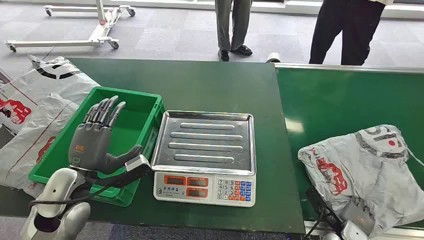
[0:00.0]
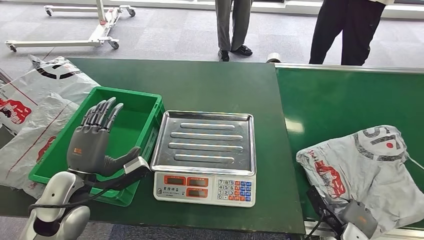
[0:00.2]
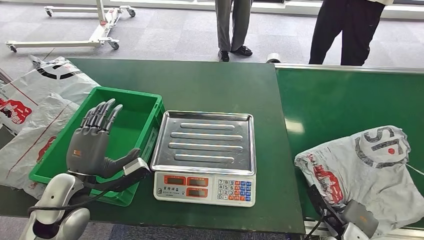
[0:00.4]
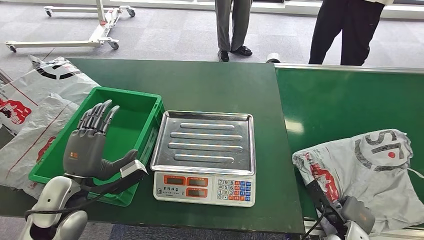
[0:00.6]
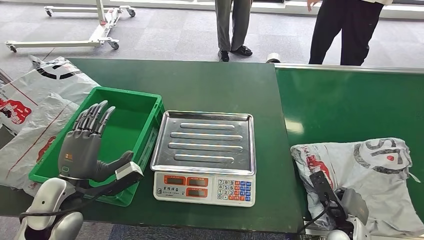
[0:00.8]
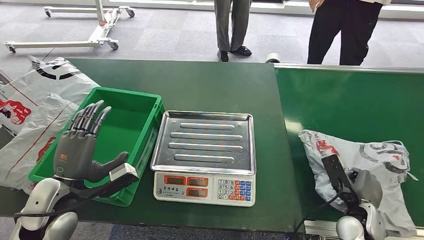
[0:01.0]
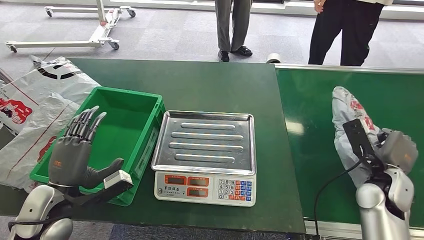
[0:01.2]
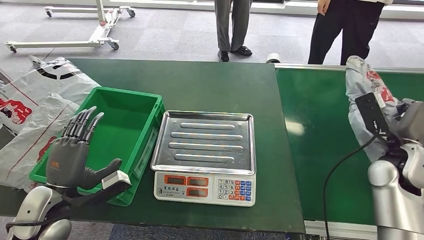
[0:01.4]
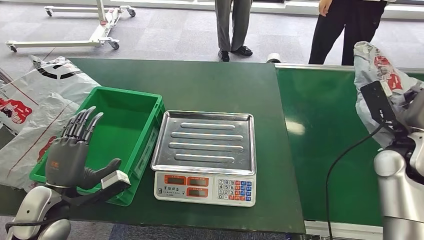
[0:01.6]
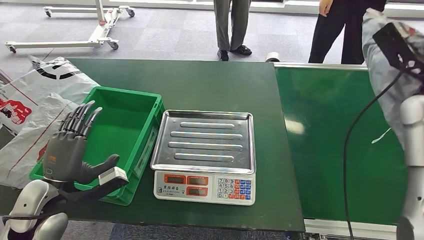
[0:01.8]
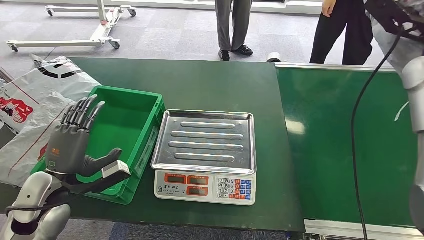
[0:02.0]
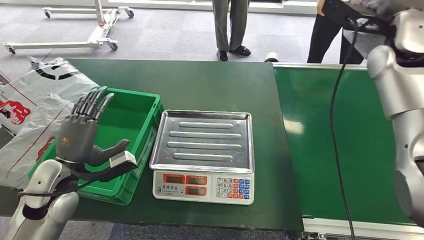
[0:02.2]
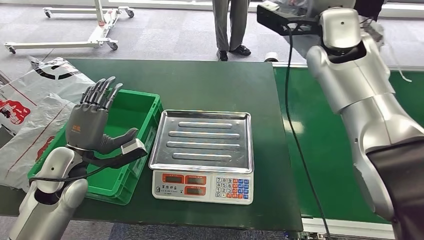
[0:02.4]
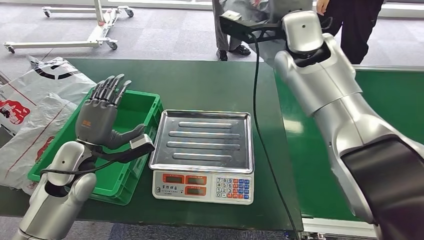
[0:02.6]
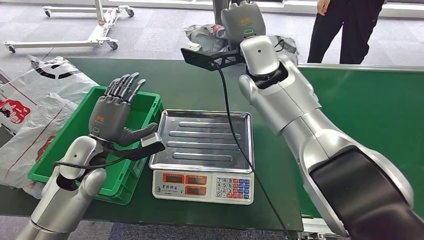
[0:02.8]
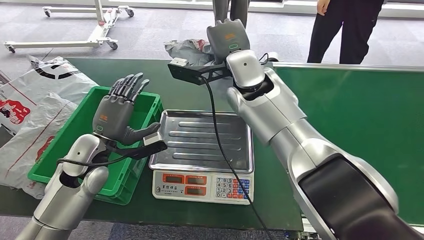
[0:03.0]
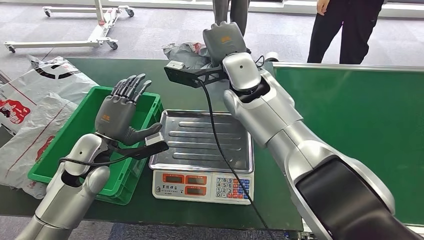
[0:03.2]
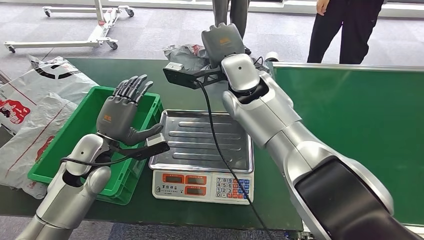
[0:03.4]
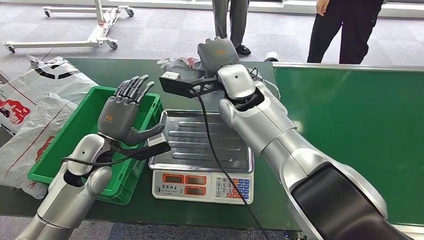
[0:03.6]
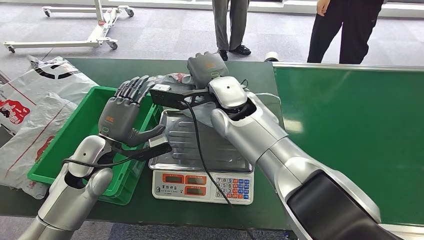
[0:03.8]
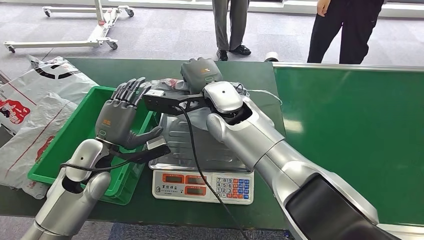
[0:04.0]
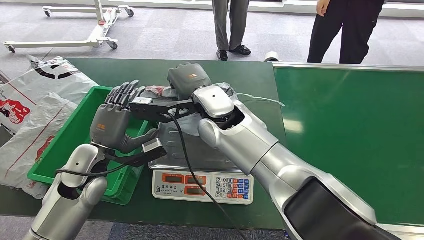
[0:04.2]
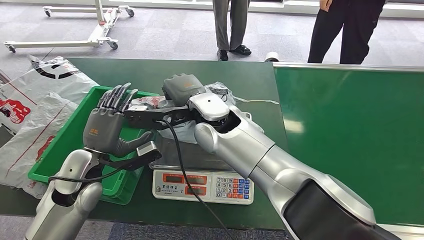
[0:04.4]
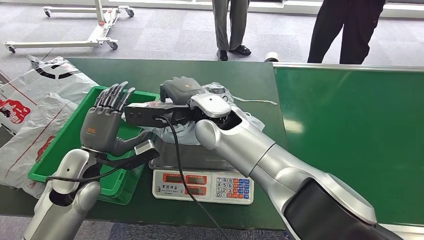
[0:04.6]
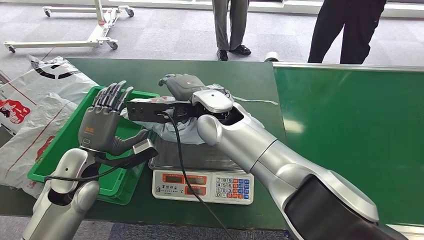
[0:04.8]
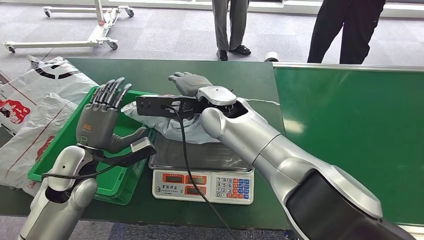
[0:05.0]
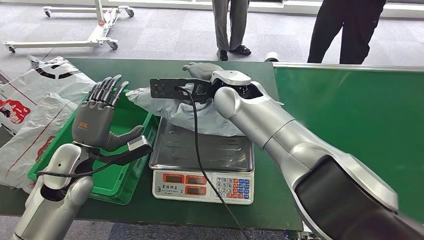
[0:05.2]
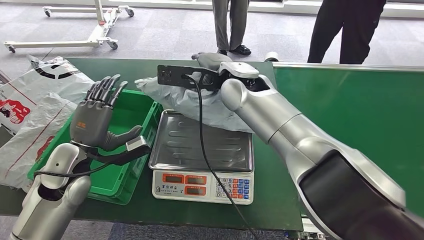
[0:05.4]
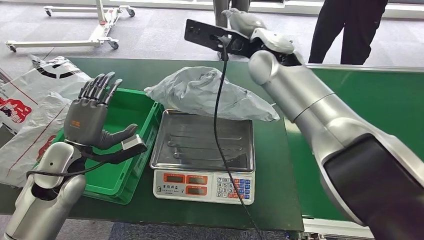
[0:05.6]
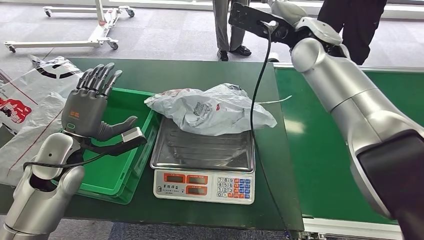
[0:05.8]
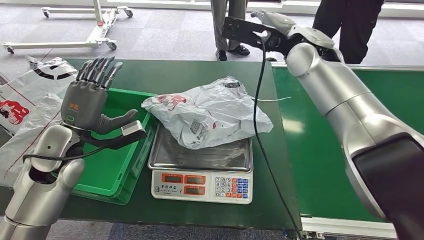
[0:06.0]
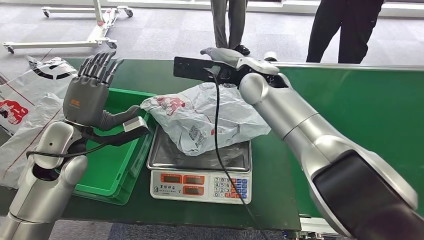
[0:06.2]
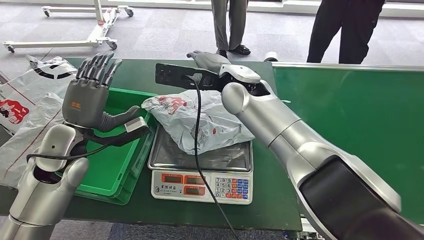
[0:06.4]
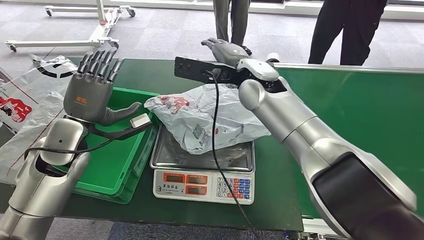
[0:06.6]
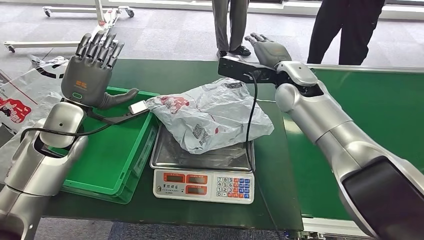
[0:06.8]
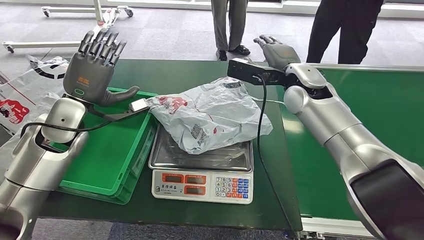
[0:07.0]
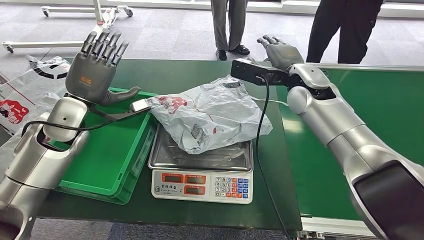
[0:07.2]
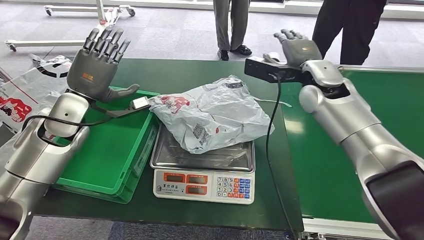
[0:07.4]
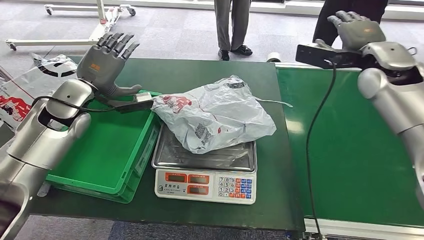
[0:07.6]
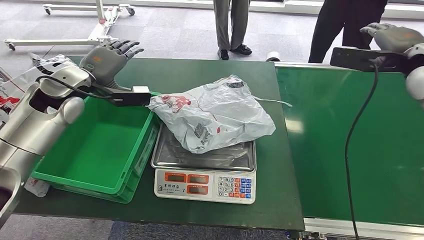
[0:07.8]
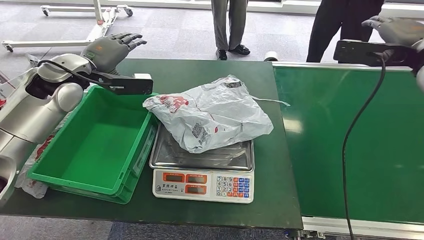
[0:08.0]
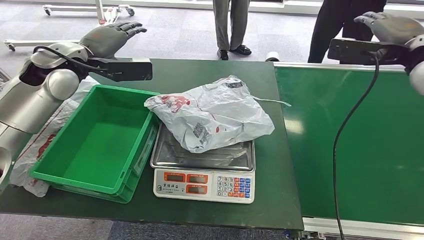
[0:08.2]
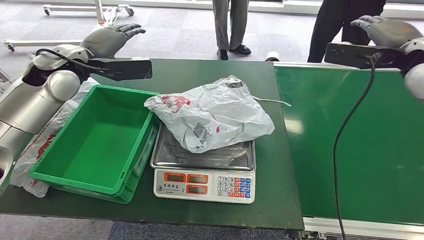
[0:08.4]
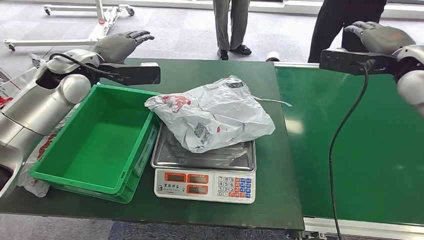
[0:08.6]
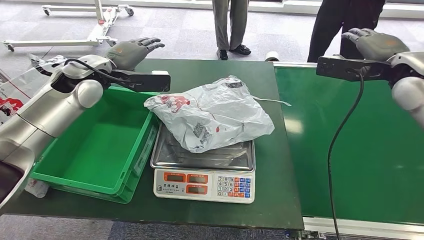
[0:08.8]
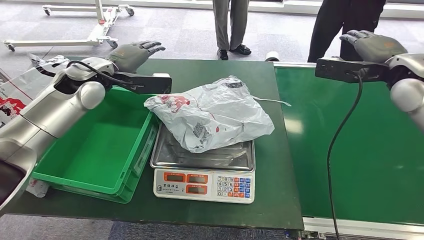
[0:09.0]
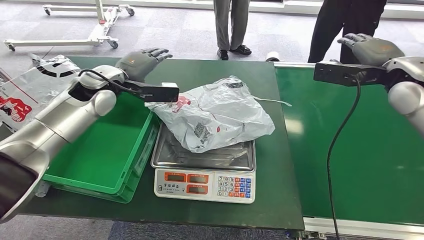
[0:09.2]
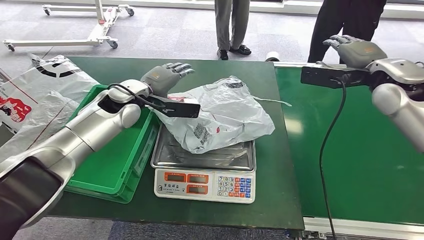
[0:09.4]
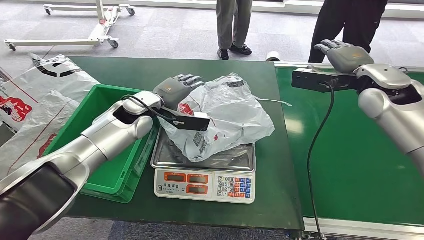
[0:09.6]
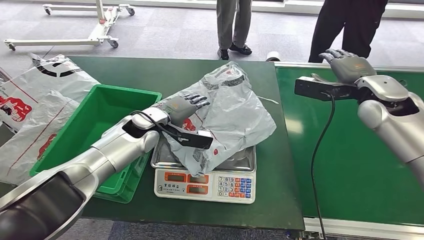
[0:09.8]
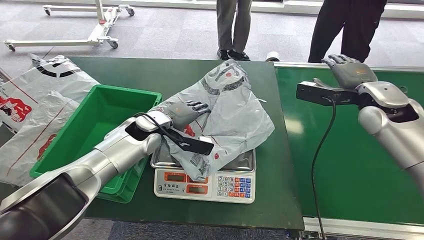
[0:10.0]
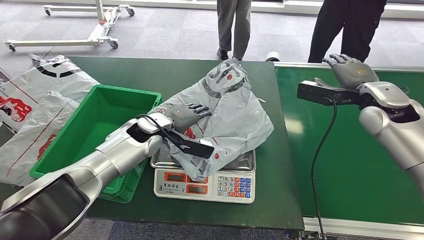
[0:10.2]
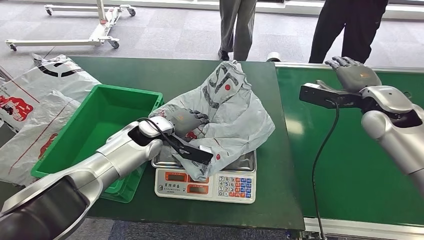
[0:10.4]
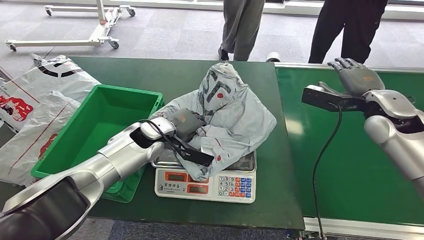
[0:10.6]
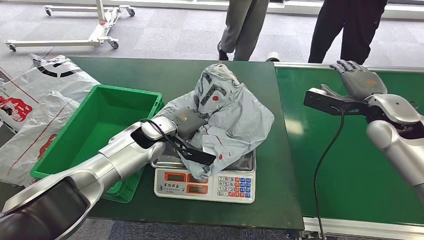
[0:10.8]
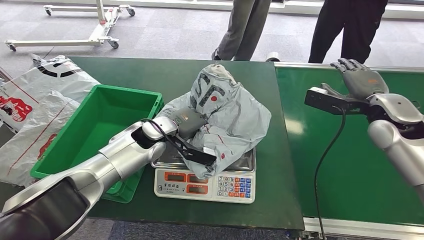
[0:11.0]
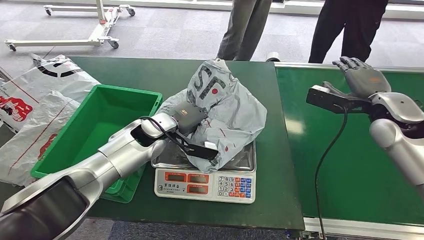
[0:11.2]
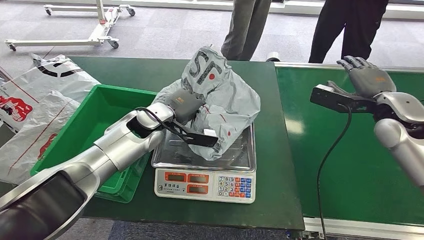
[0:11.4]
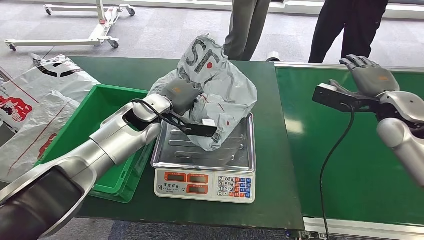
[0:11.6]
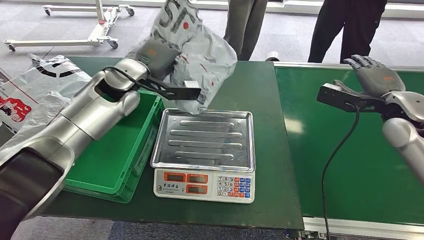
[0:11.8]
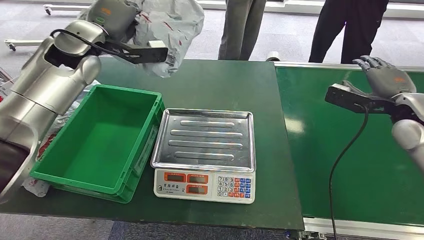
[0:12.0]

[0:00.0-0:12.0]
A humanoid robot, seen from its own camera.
Step, 0:00.0 to 0:02.4: Pick up the package from the conveyor belt.
Step, 0:02.6 to 0:05.8: Place the package onto the inbound machine.
Step, 0:06.0 to 0:11.8: Pick up the package from the inbound machine.

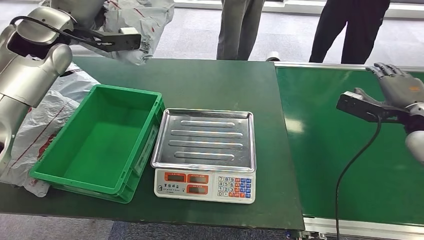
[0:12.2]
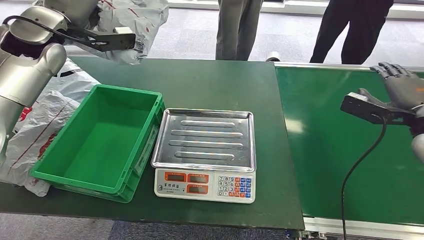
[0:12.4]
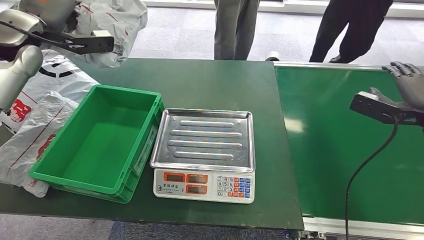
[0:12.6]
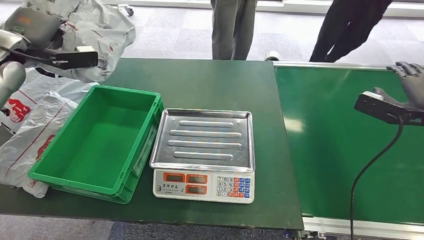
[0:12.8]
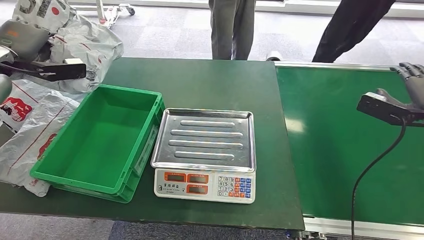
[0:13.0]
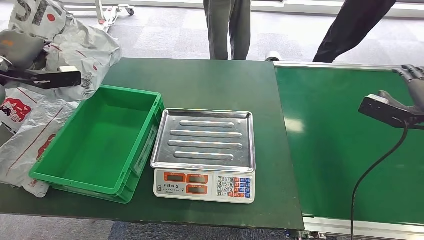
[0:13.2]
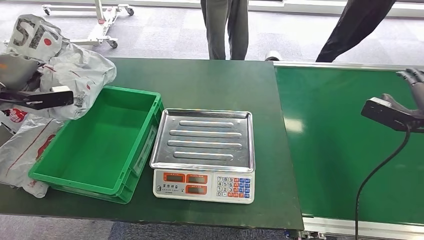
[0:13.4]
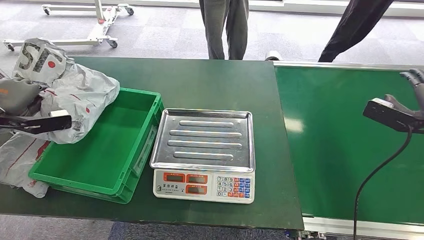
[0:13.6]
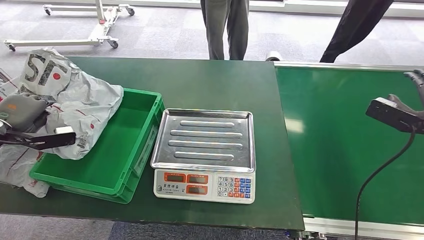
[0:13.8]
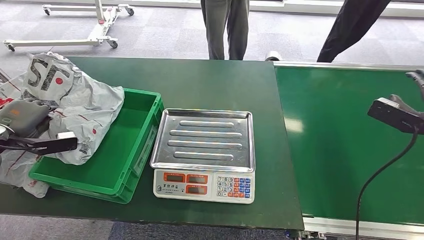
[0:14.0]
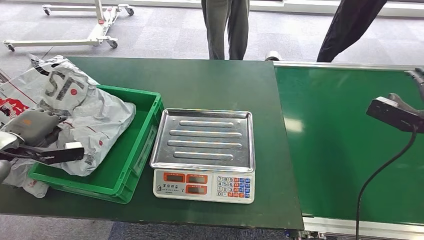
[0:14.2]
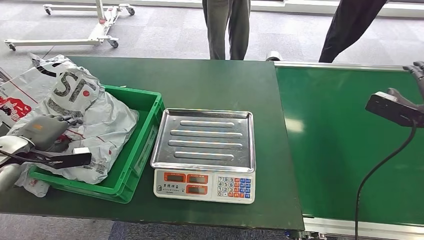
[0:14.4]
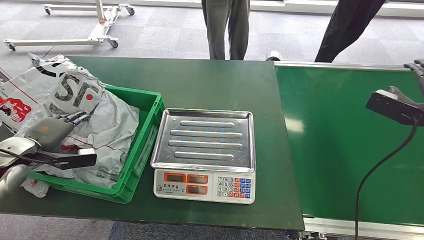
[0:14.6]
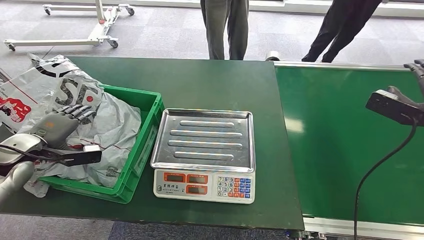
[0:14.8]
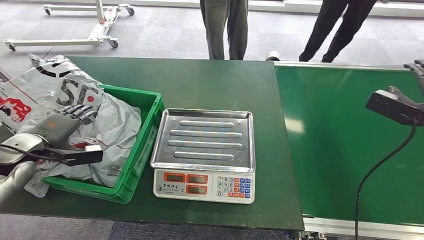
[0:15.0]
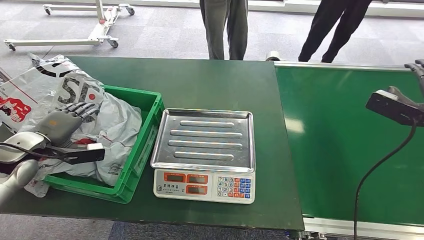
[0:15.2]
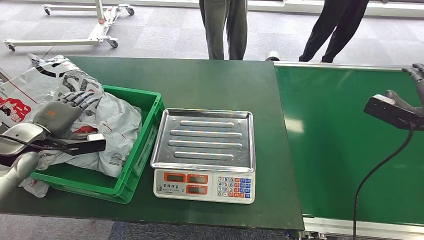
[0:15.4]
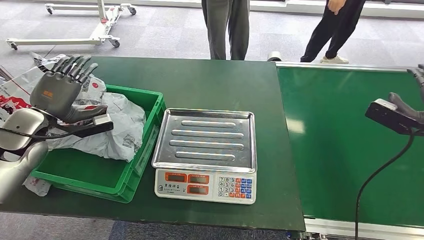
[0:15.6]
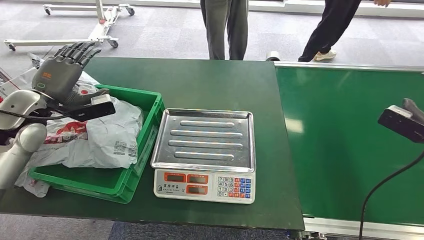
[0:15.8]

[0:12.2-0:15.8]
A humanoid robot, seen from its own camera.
Step, 0:12.2 to 0:15.8: Place the package into the parcel locker.
0:14.0 to 0:15.8: The left hand is displaced to the right and forward by approximately 15 cm.
